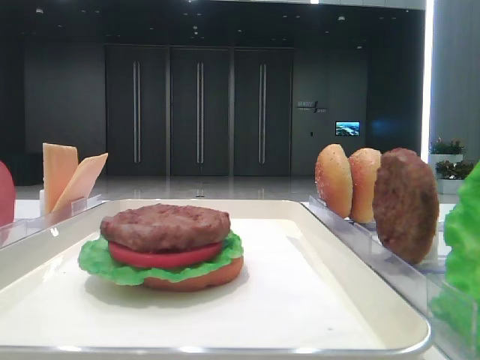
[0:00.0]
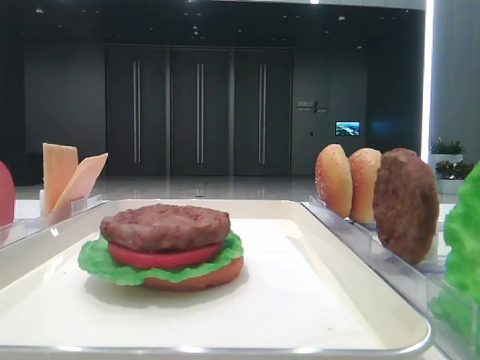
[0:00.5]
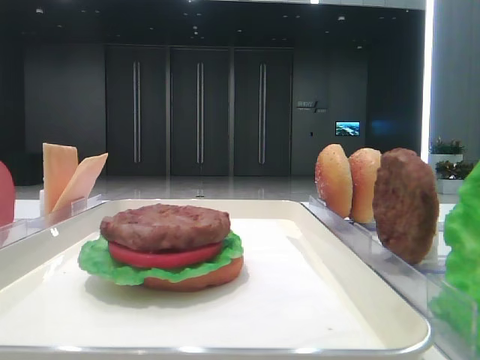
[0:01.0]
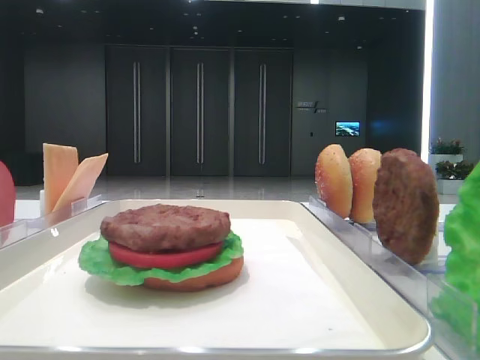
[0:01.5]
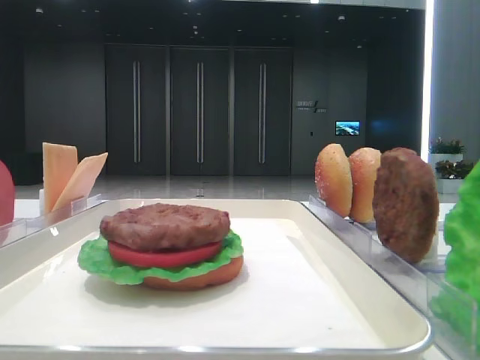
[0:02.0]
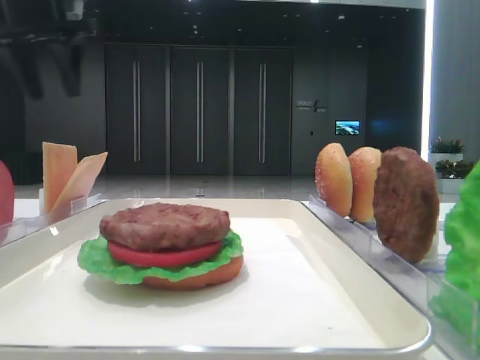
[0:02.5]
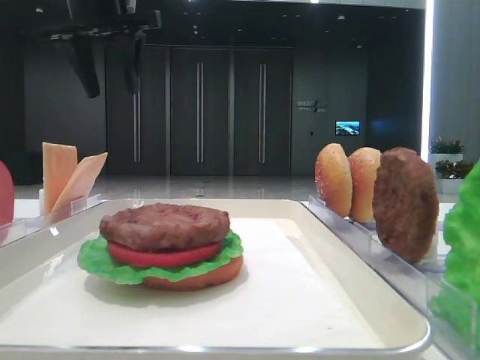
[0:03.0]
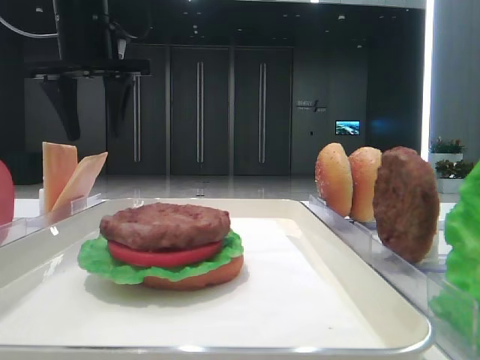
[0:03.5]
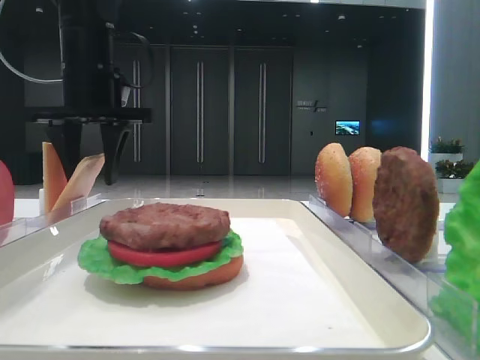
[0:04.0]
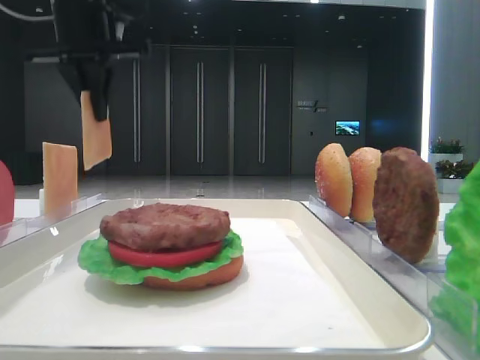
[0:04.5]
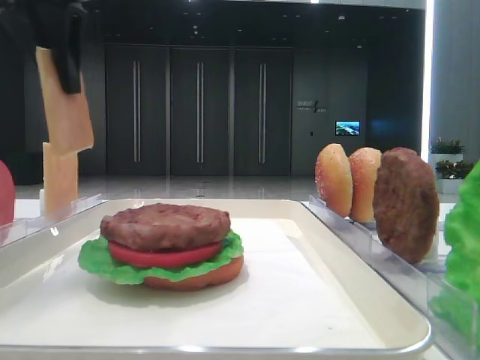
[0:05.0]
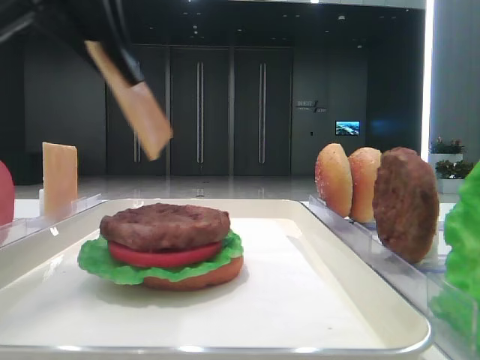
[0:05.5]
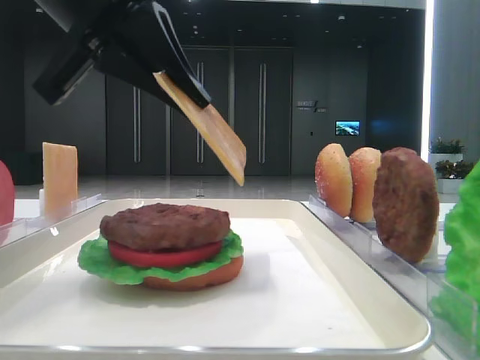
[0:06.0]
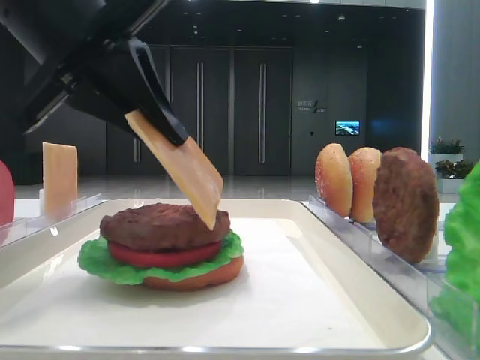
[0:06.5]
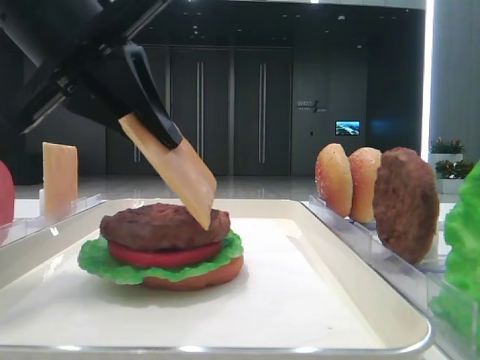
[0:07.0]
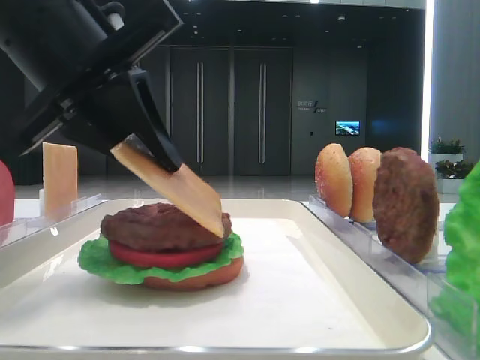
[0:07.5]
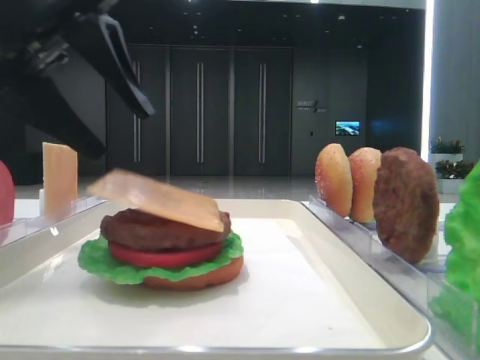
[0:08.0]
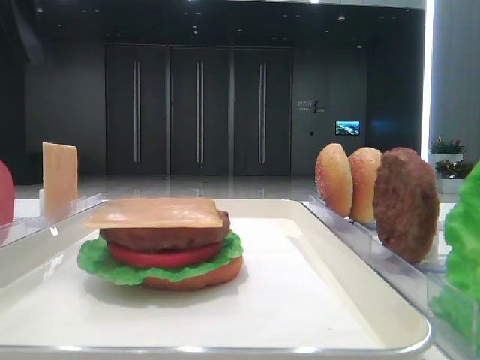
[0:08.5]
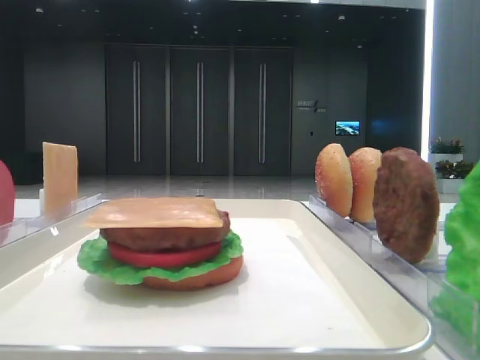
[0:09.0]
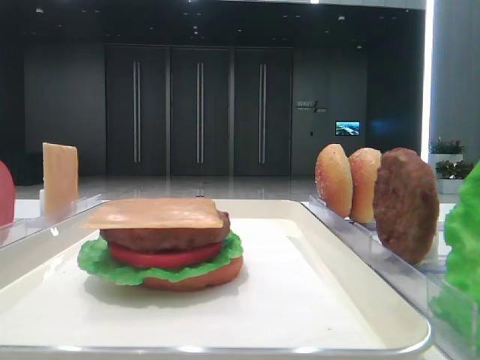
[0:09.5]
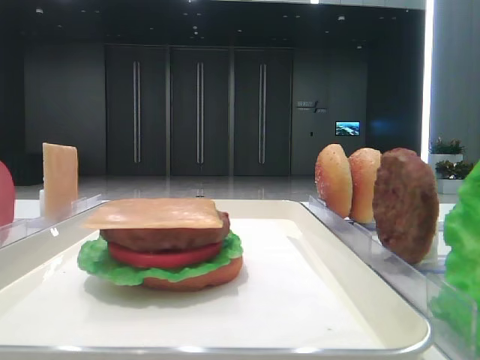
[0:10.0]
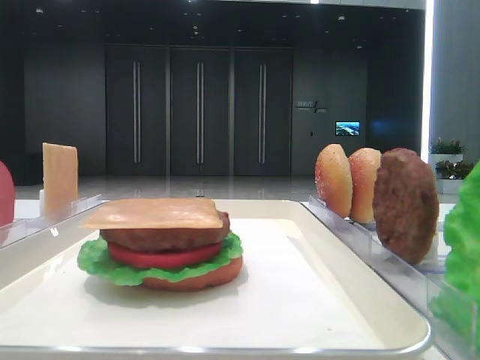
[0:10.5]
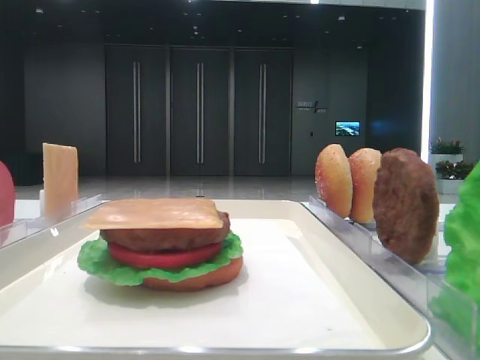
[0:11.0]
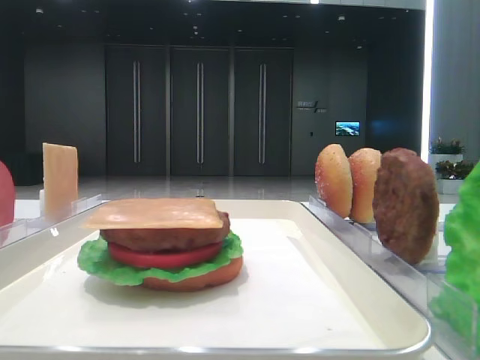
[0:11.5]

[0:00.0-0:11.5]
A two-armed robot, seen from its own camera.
Step, 0:00.0 to 0:04.0: Pick up the cheese slice with the left hand.
Step, 0:04.5 to 0:07.5: Place the cheese slice on the patty with the left hand.
0:02.0 to 0:04.0: The left gripper heads forward, to the right and downward, covering some 30 cm.
0:04.0 to 0:06.0: The left gripper shifts about 20 cm backward, and closes its fingers.
0:06.0 to 0:07.5: There are only small adjustments of the grippers.
0:07.5 to 0:09.5: The left gripper is displaced to the left and backward by roughly 25 cm, and opens up.

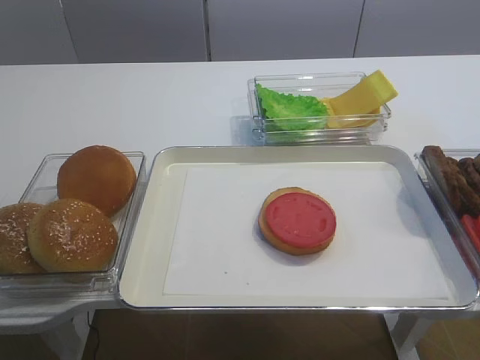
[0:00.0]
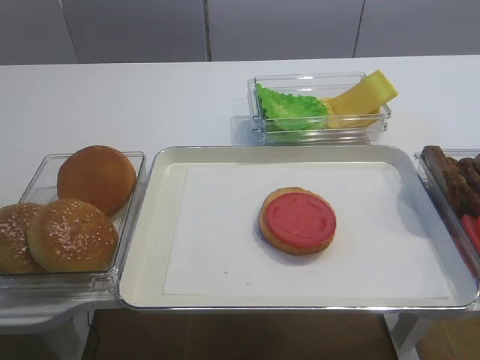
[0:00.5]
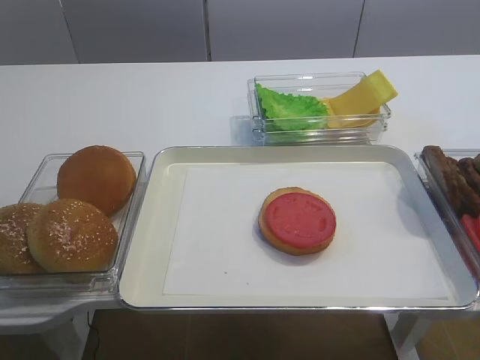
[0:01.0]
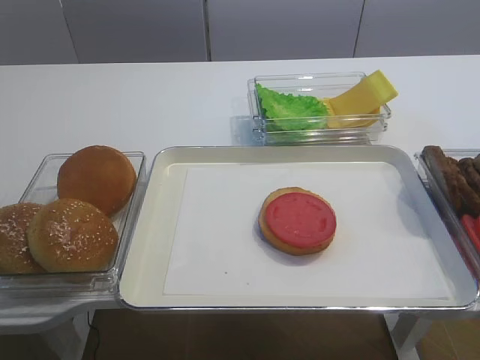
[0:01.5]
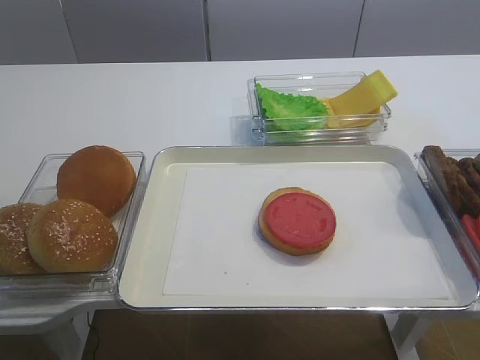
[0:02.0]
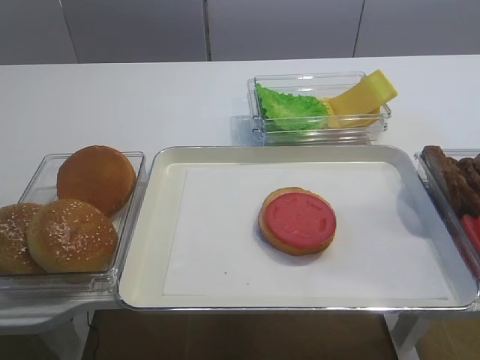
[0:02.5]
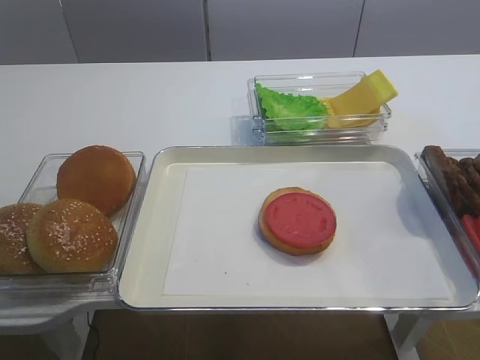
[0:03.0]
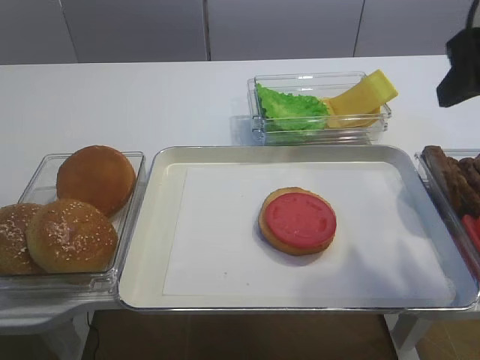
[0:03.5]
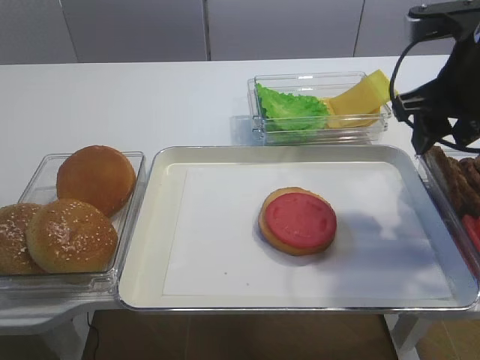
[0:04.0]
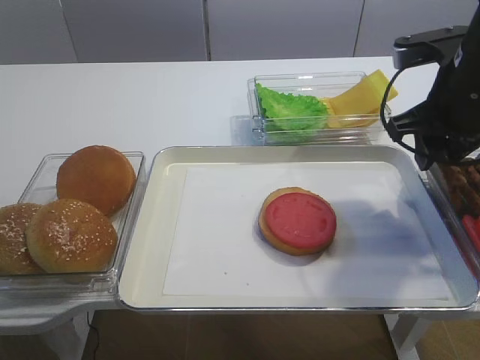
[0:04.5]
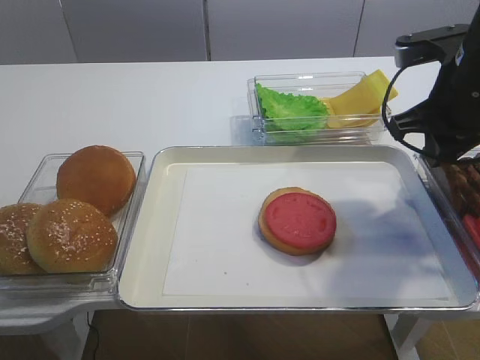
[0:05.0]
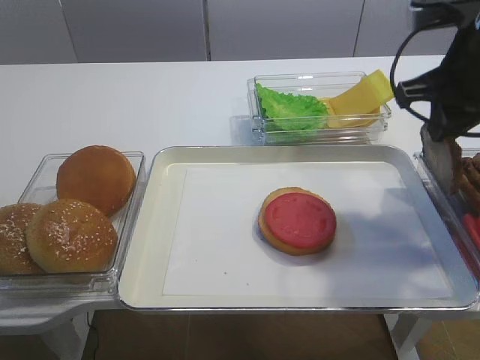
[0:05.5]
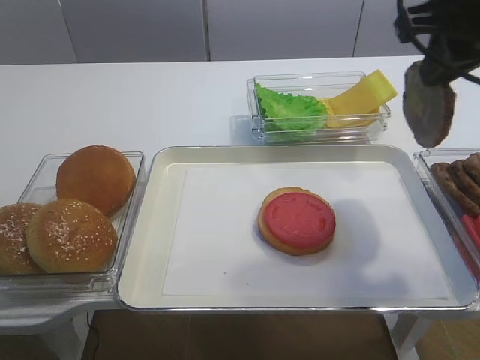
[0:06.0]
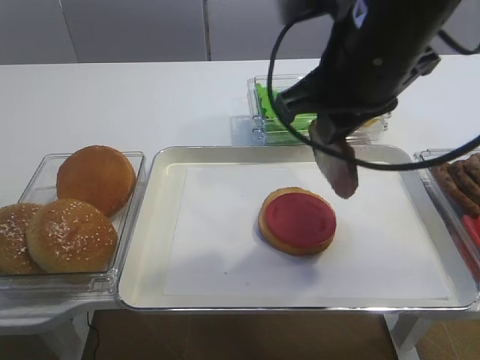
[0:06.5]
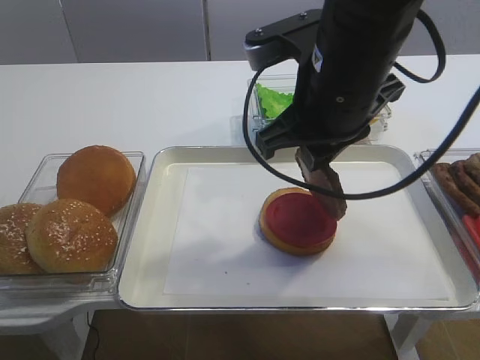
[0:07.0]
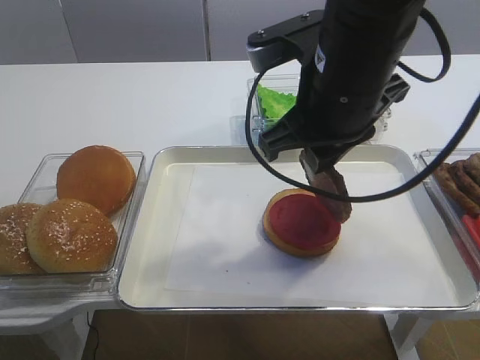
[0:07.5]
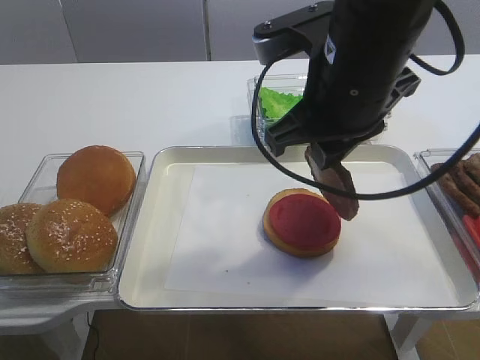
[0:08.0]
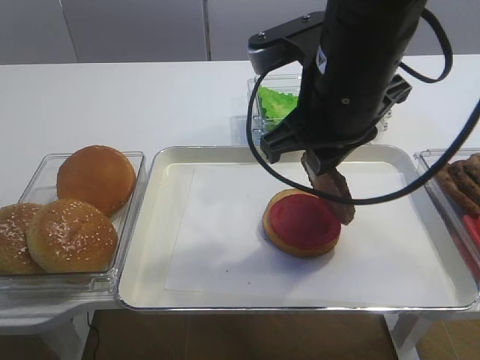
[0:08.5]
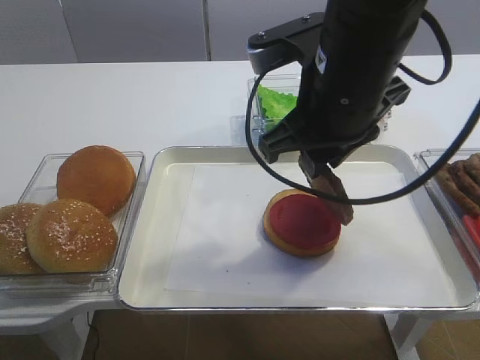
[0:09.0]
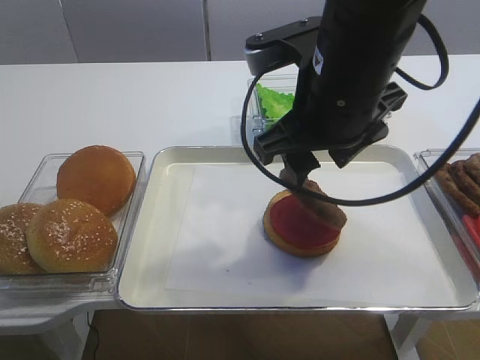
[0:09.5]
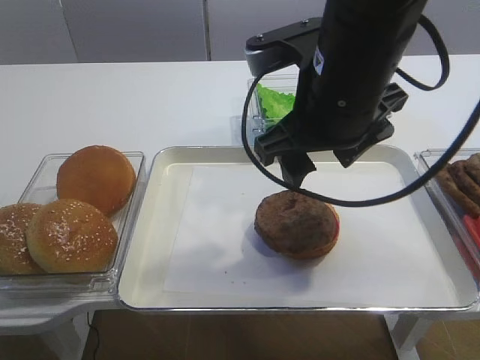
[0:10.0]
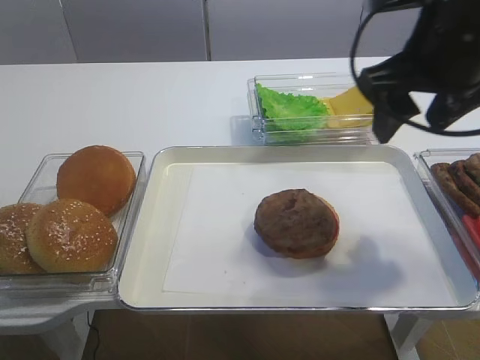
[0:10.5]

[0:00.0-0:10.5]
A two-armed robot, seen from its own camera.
Step, 0:00.0 to 0:05.5: Pick up the cutlet with the right gripper.
Step, 0:06.0 to 0:10.0: Place the cutlet on the tomato slice with the right gripper.
0:02.0 to 0:04.0: The right gripper heads forward, covering about 30 cm.
0:04.0 to 0:06.5: The right gripper travels to the left by about 10 cm, and closes up.
0:06.5 to 0:08.5: The grippers make only small movements.
0:08.5 to 0:10.5: The right gripper moves to the right, some 10 cm, and opens up.

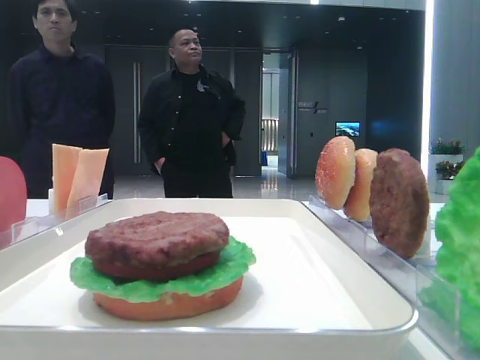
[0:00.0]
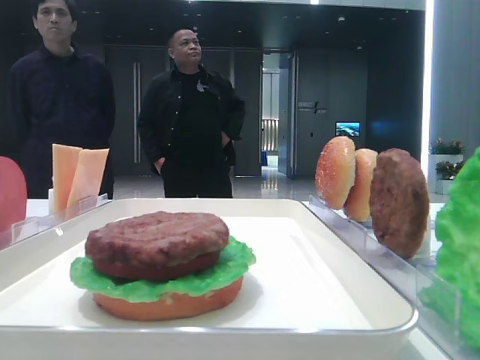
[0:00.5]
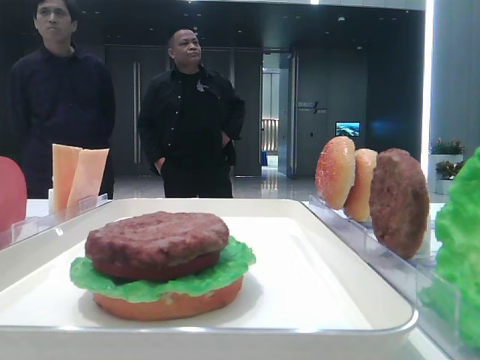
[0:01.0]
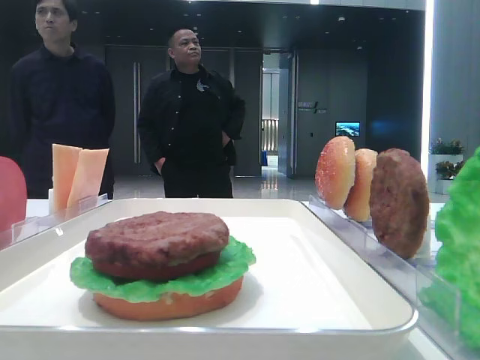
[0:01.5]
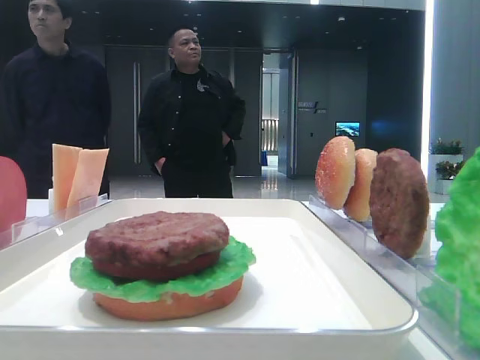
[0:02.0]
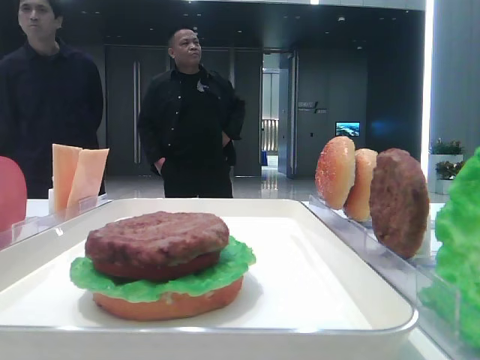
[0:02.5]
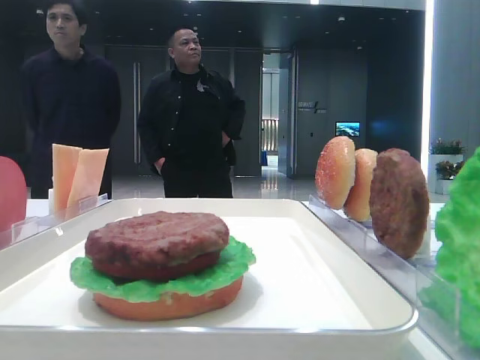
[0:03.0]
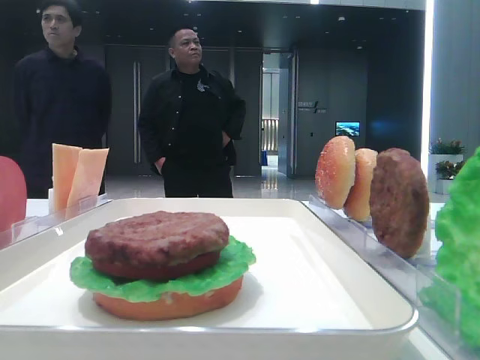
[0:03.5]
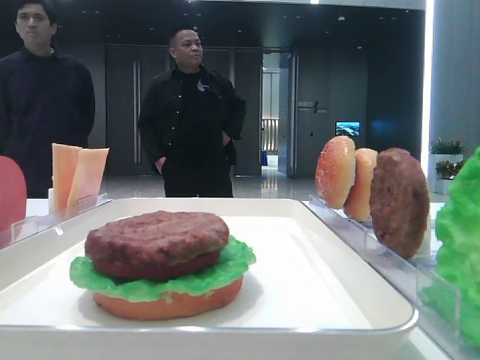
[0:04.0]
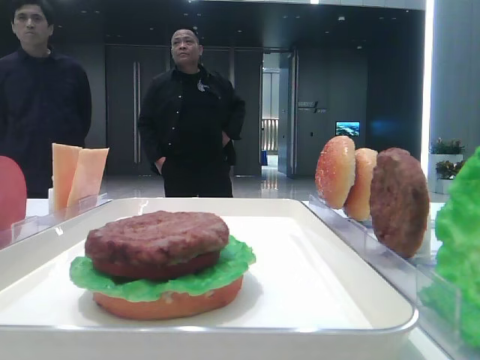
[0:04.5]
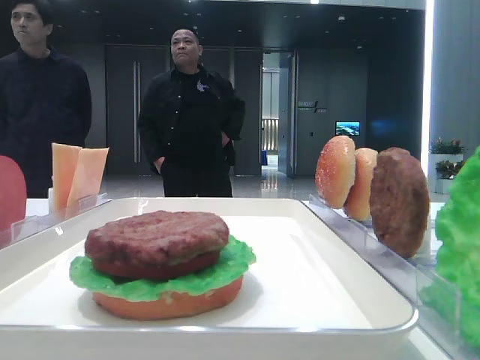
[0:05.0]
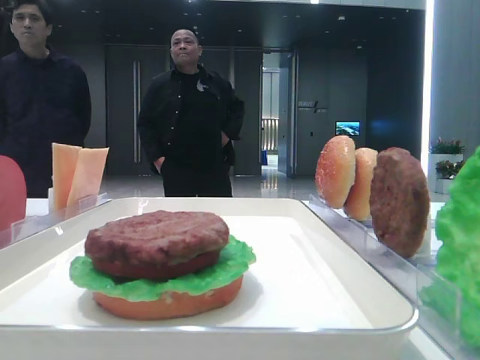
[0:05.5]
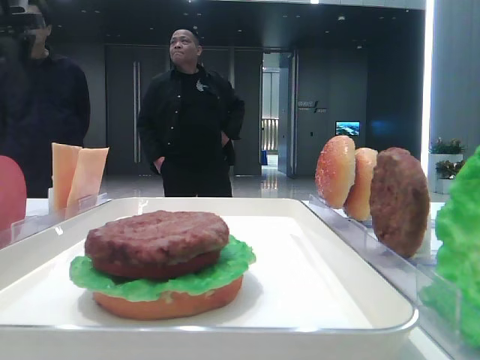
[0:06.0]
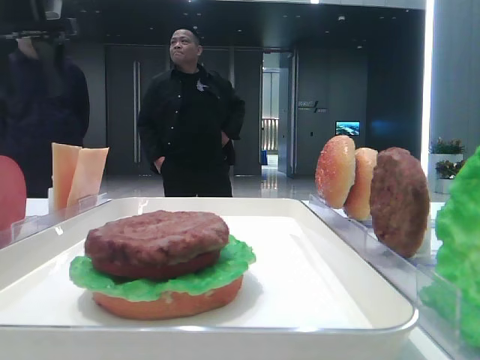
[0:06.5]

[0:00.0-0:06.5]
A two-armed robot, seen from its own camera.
0:02.0 to 0:04.5: The left gripper goes about 30 cm forward.
0:04.5 to 0:06.5: The left gripper moves forward and to the right, about 15 cm.
